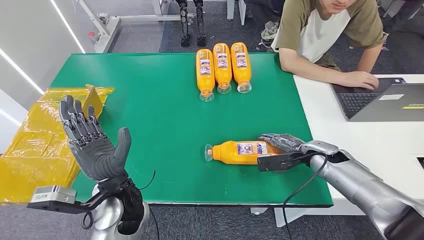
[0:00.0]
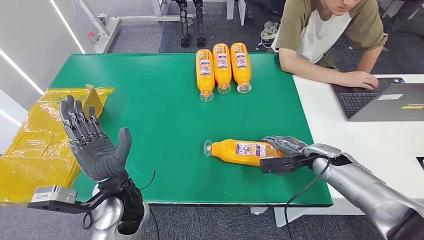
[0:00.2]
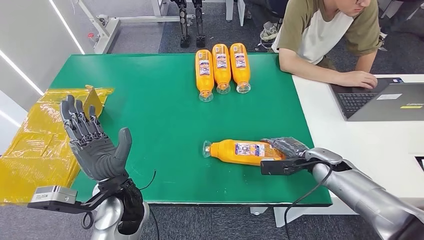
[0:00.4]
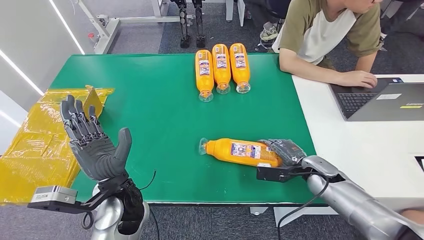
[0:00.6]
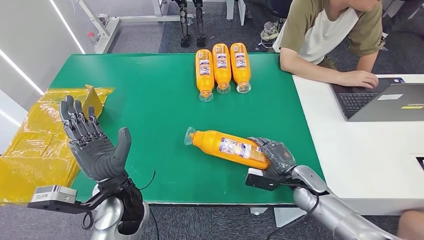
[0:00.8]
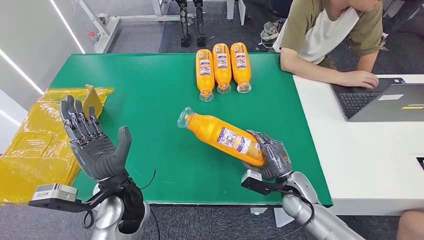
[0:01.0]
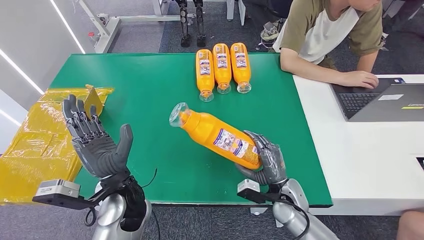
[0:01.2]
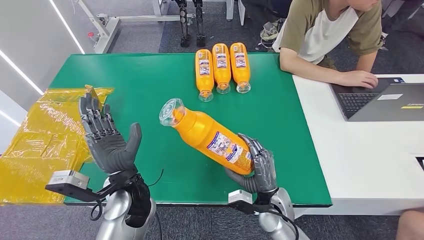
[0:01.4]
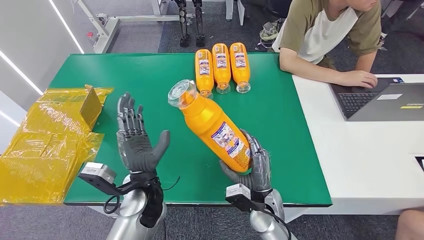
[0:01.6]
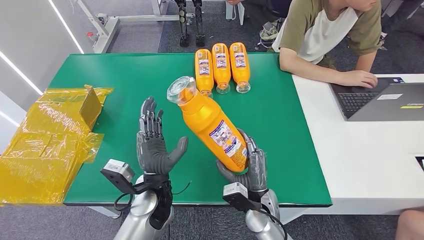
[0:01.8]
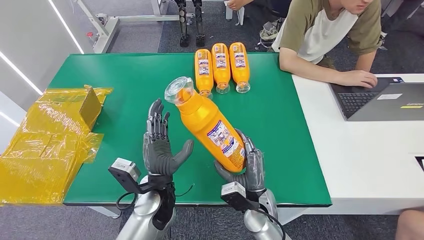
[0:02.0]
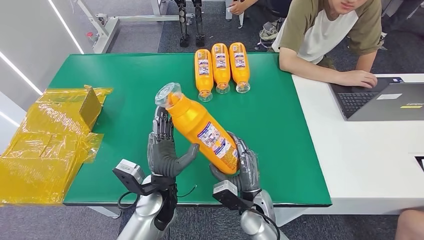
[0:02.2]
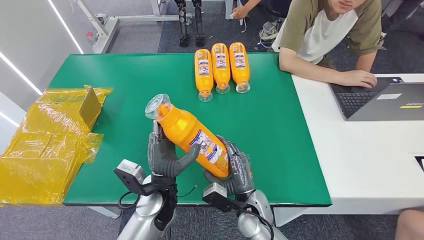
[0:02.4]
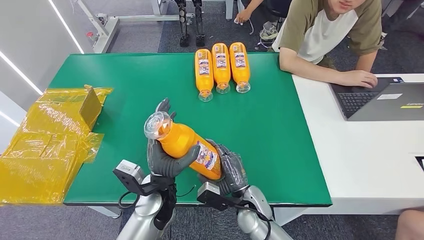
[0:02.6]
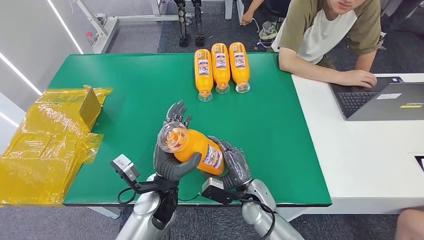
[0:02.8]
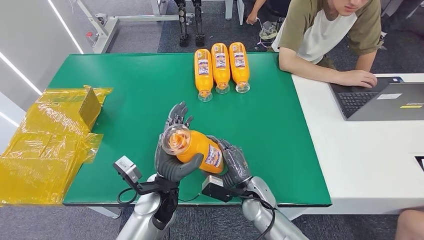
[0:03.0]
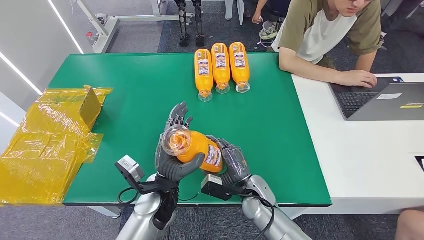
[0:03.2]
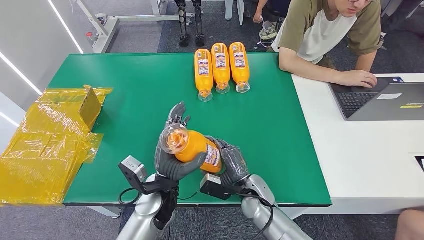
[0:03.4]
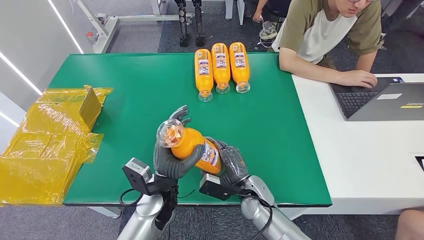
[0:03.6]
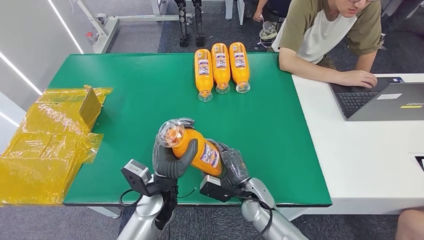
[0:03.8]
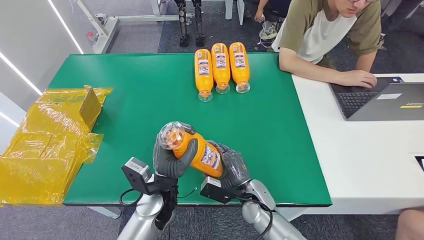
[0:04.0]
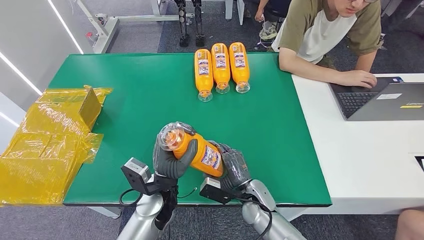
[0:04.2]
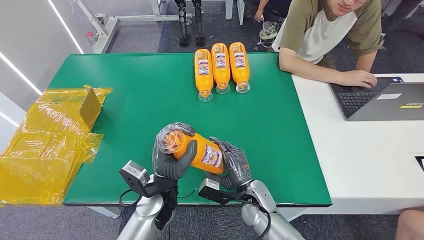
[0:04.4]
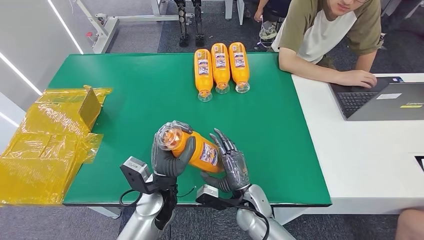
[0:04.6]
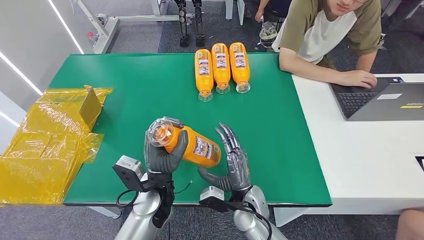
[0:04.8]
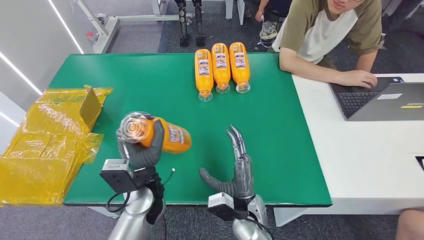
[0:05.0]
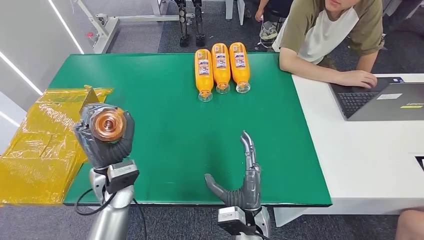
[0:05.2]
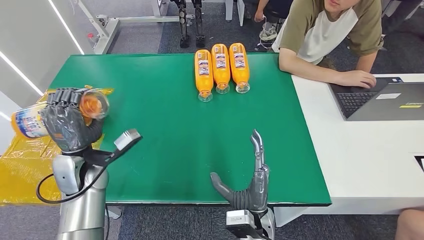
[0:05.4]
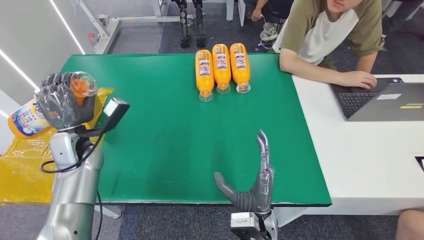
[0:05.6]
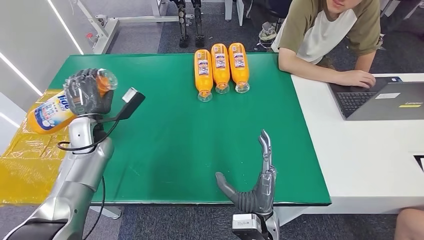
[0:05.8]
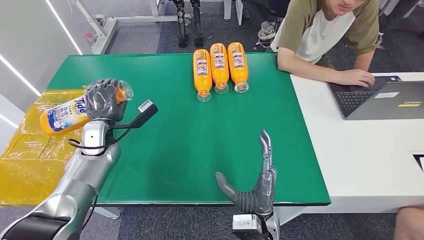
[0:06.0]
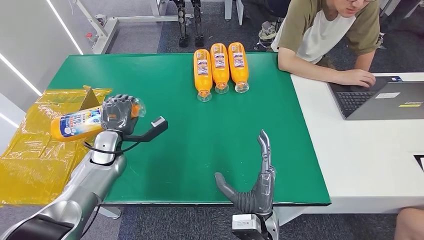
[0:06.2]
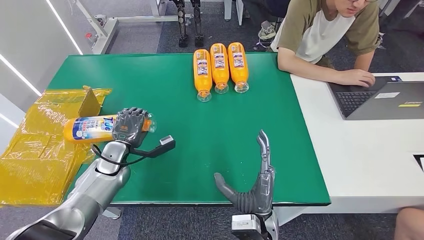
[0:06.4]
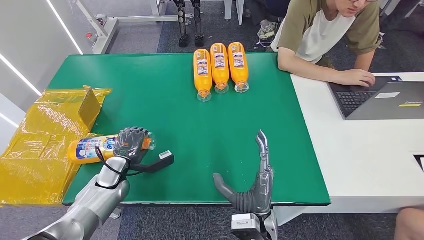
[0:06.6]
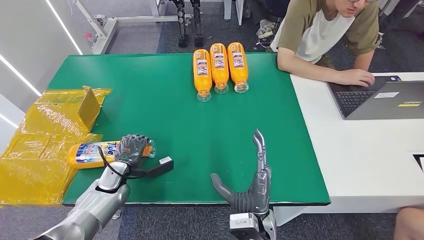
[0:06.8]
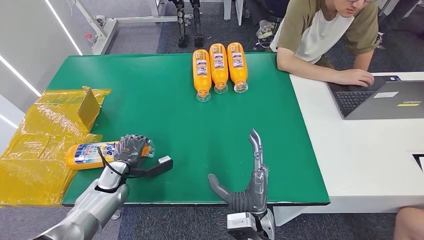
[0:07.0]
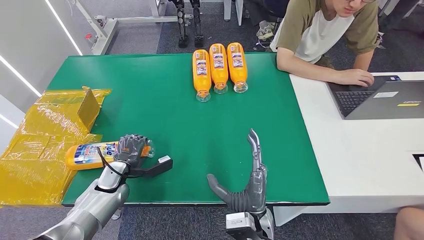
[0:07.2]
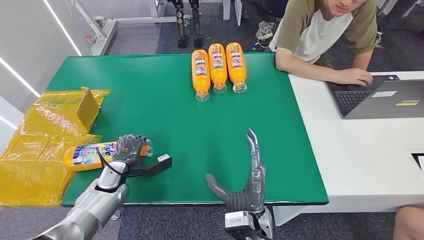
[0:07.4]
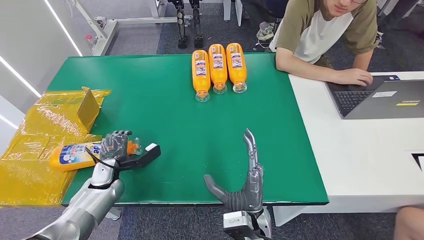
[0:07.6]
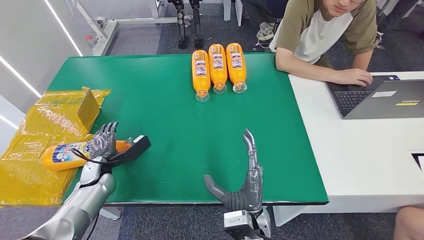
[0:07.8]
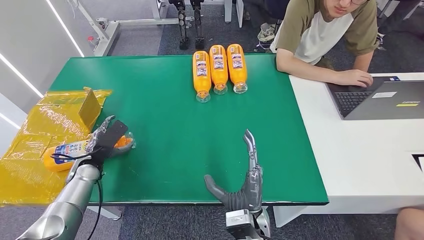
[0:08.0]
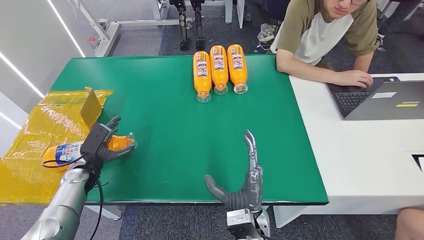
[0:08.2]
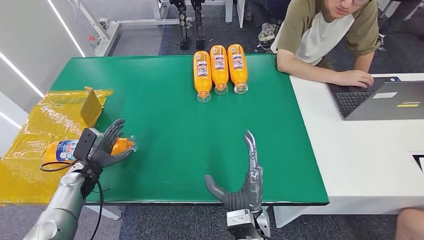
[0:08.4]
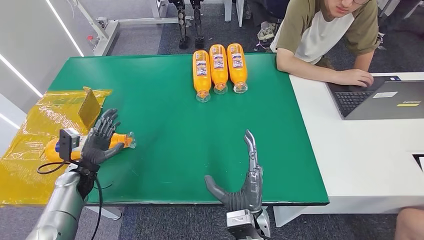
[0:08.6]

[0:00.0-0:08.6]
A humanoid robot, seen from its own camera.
Step, 0:00.0 to 0:03.0: Pick up the bottle from the table.
Step, 0:03.2 to 0:08.6: Turn the bottle to the front side.
0:01.4 to 0:02.8: The left hand changes place by approximately 5 cm, while the right hand moves to the left, roughly 5 cm.
0:02.8 to 0:04.4: The hands stay close to where they were, moving slightly.
0:04.4 to 0:05.8: The left hand heads to the left and forward, covering approximately 25 cm, while the right hand goes some 10 cm backward and upward.
0:05.8 to 0:07.2: The left hand travels downward and backward by some 15 cm.

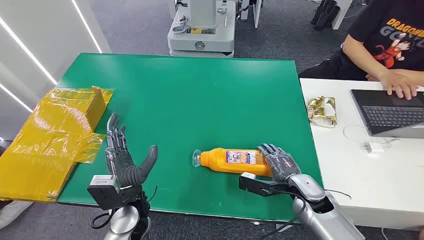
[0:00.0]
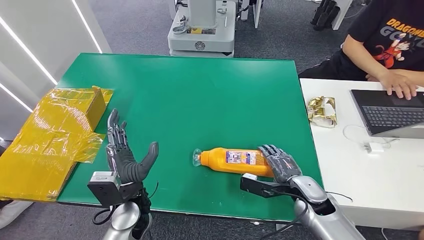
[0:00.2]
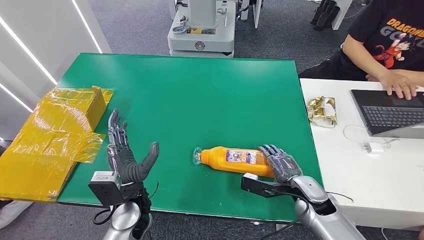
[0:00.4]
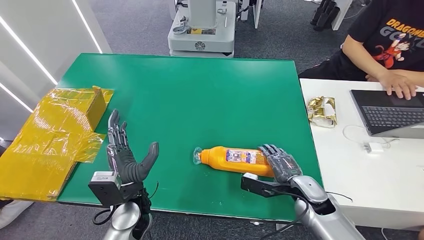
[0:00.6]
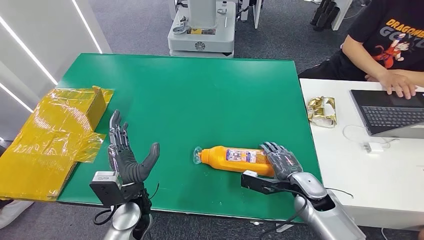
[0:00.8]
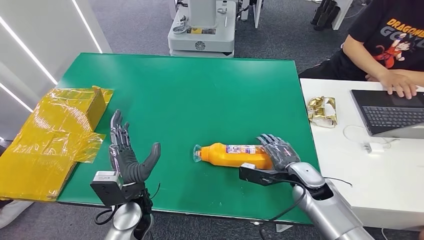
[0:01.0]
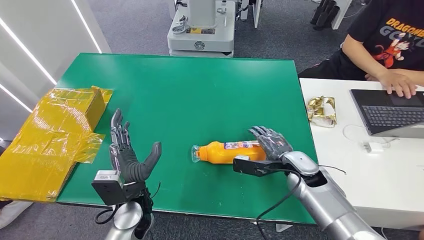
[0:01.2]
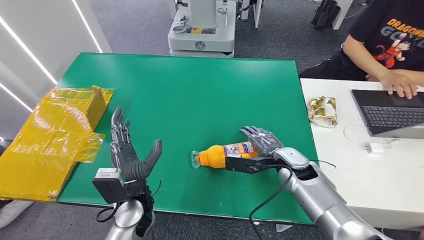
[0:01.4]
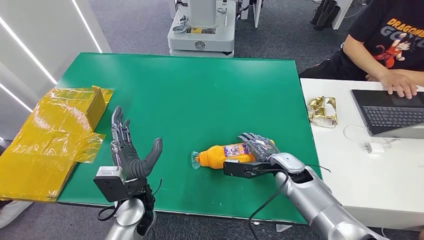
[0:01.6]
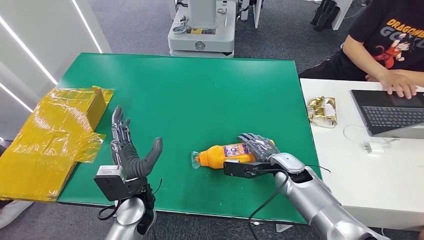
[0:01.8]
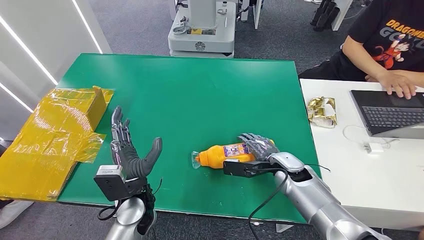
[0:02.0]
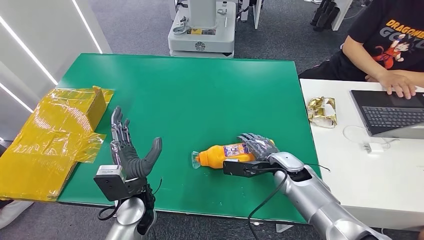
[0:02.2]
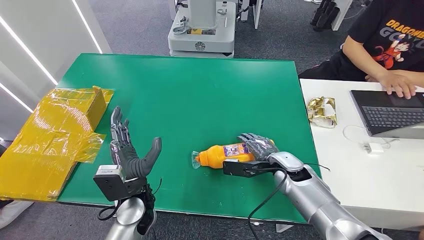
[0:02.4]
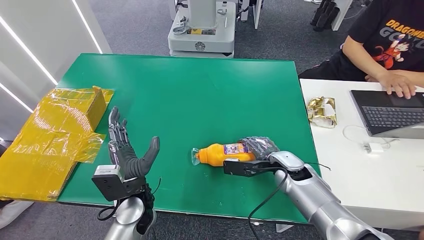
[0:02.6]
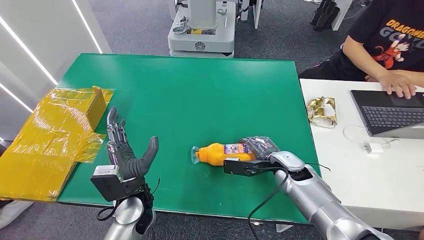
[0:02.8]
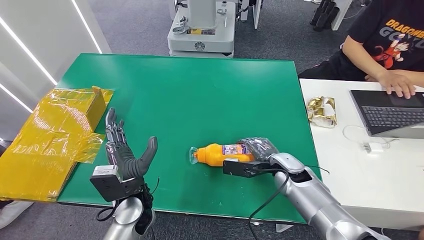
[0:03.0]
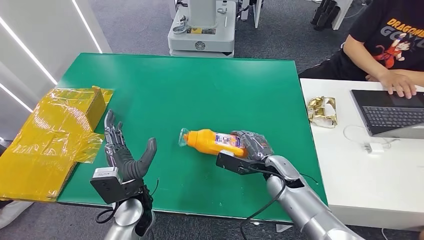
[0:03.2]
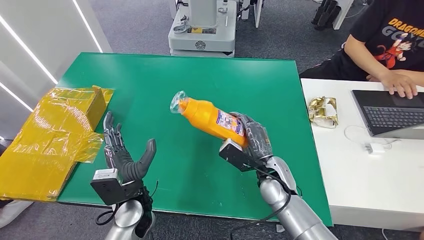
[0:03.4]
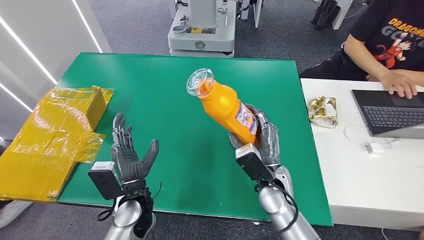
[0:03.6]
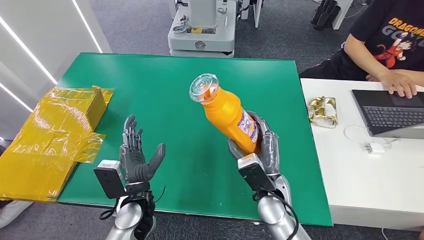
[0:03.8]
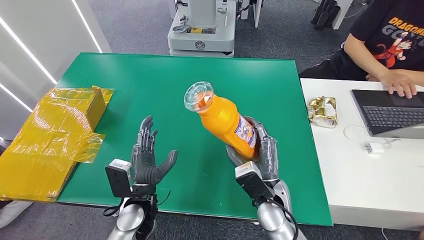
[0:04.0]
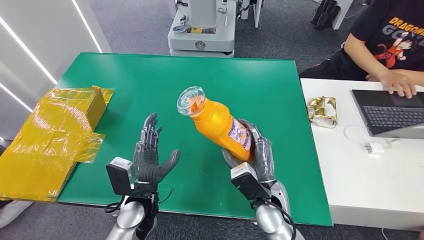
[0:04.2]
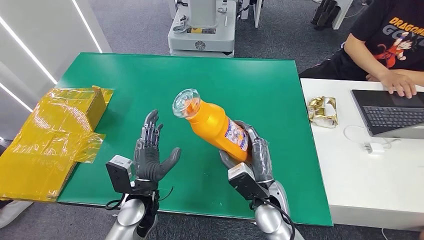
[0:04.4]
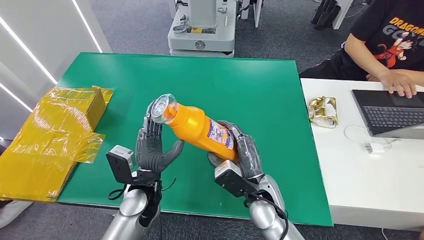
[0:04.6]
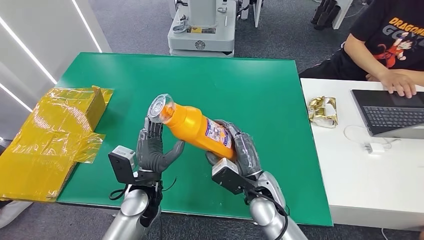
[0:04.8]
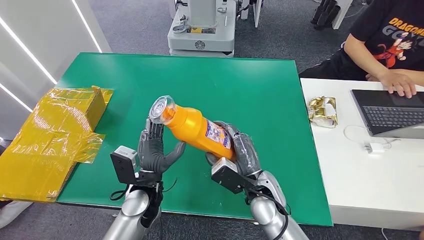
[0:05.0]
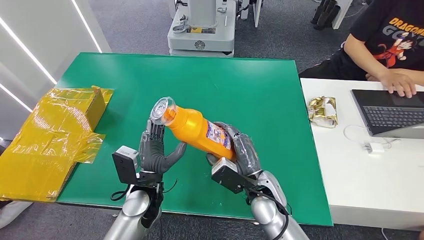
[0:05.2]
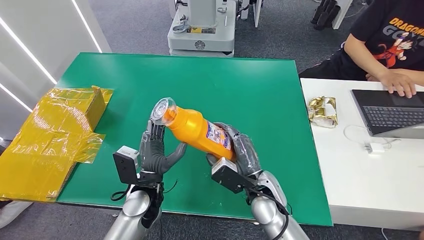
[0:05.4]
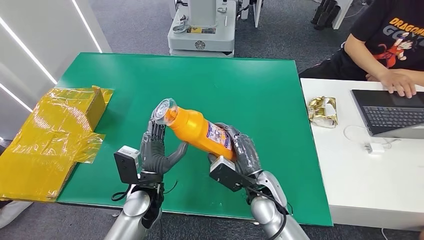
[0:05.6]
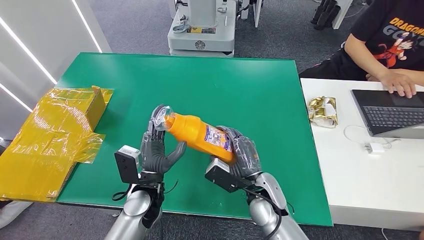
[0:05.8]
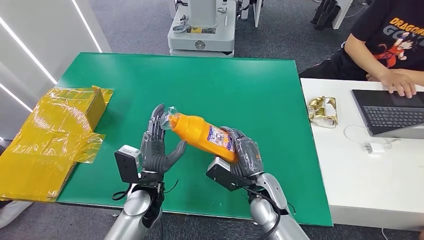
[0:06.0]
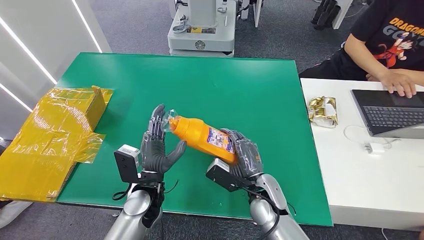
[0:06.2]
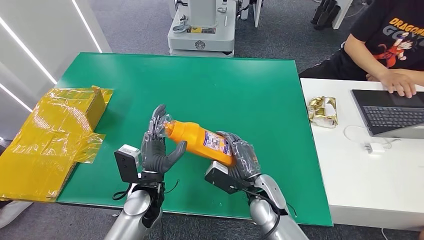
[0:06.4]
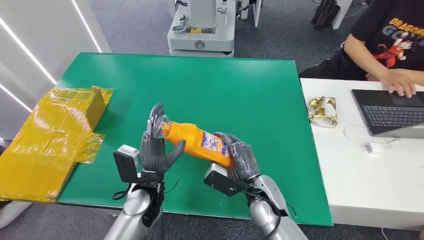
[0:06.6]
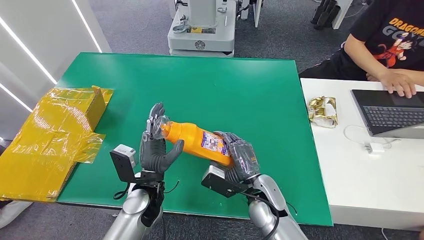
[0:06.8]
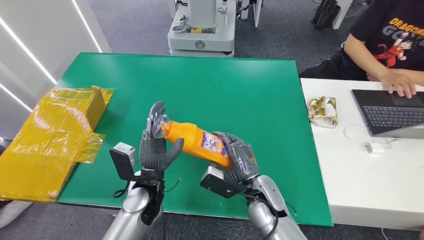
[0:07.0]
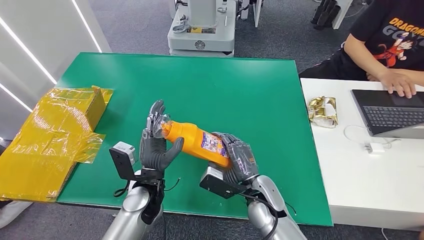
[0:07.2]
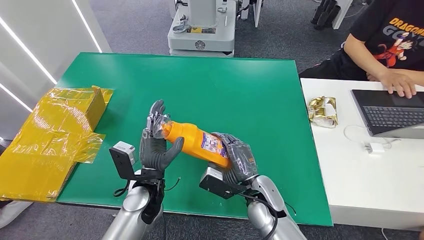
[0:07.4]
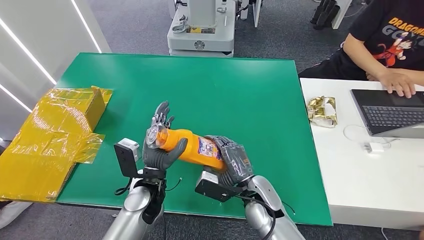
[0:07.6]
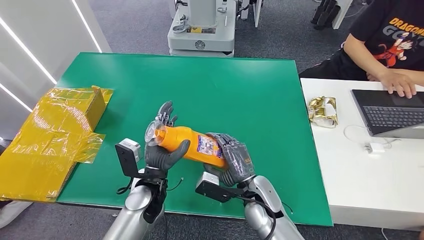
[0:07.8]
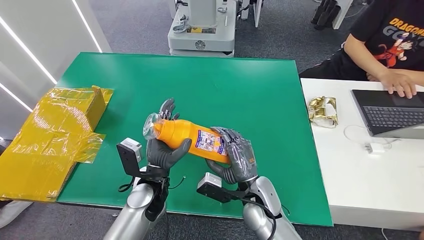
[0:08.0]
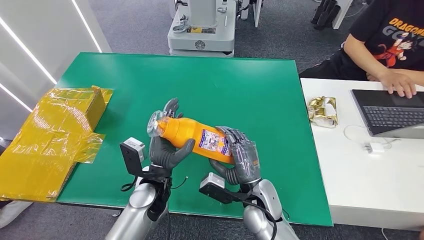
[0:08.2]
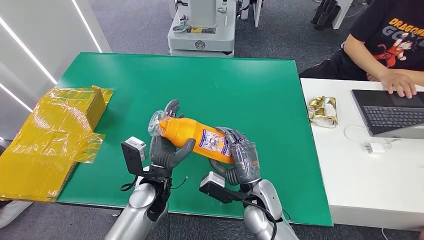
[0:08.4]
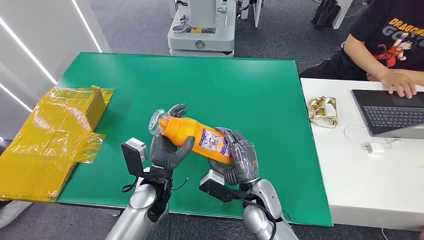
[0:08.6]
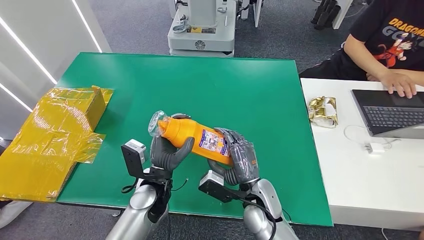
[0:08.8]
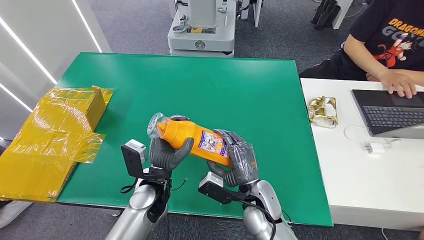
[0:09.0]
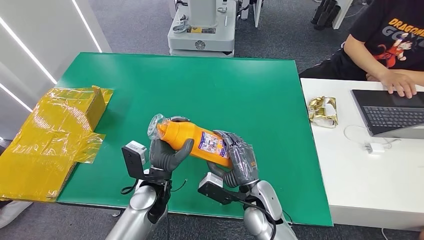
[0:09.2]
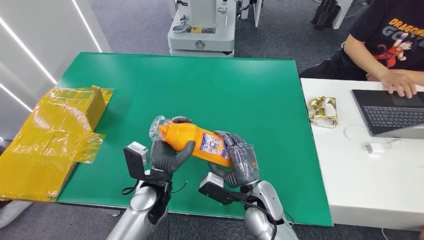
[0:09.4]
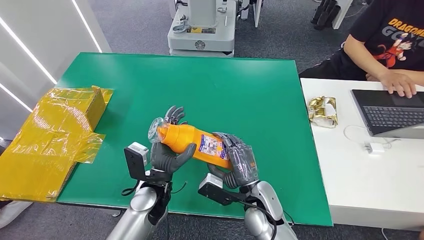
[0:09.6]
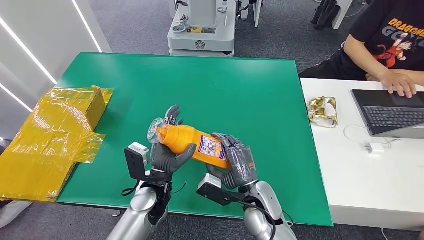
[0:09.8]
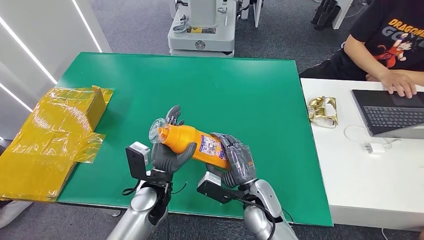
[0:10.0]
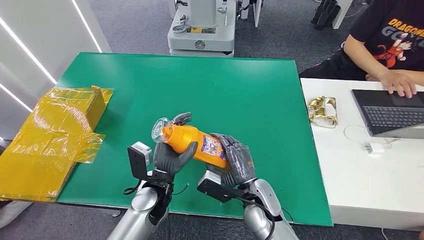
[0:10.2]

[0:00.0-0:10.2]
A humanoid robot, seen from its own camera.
Step, 0:00.0 to 0:05.6: Pick up the bottle from the table.
0:01.4 to 0:03.0: The hands move only a little.
0:03.0 to 0:04.4: The right hand heads backward and to the left, covering some 10 cm.
0:04.4 to 0:05.8: The hands stay close to where they were, moving slightly.
0:05.8 to 0:10.2: The hands stay close to where they were, moving slightly.
